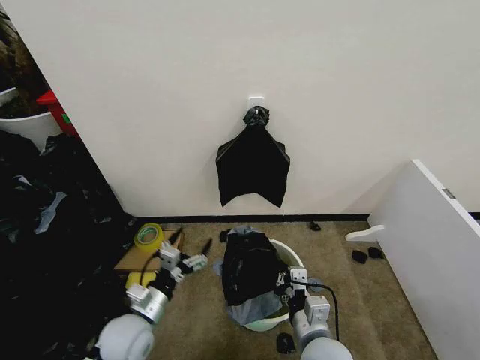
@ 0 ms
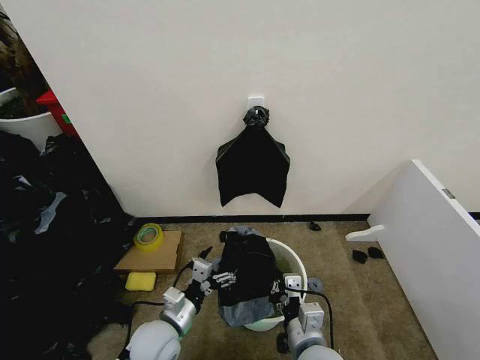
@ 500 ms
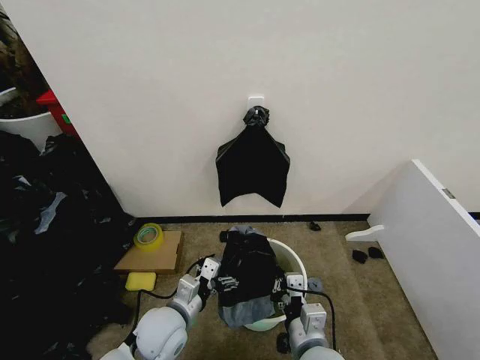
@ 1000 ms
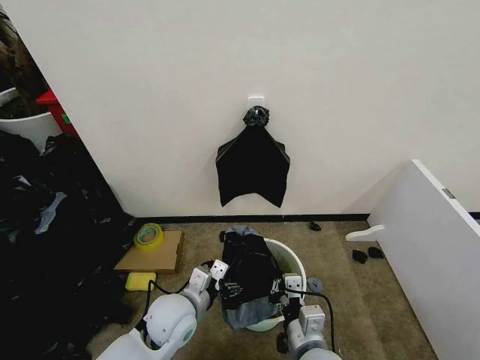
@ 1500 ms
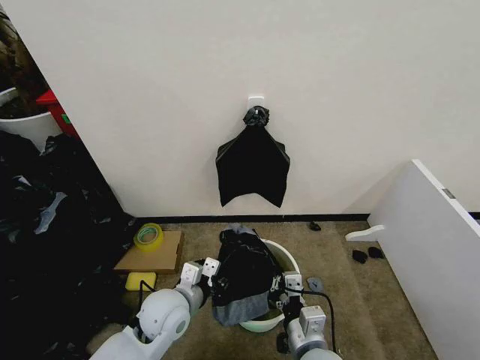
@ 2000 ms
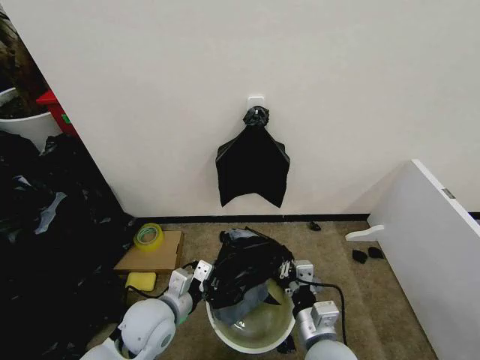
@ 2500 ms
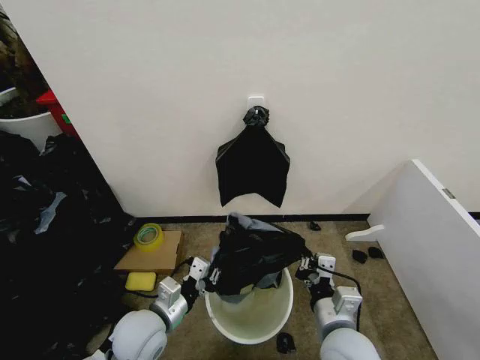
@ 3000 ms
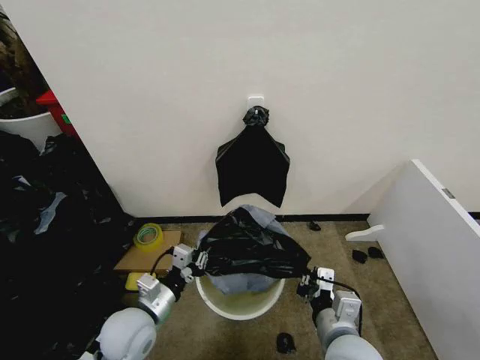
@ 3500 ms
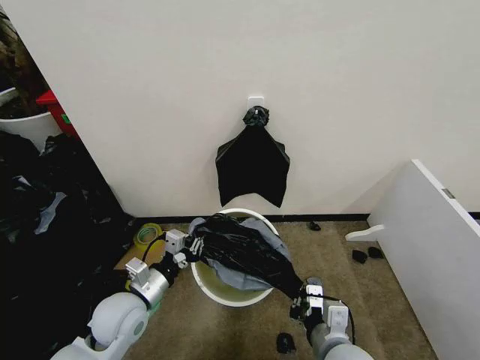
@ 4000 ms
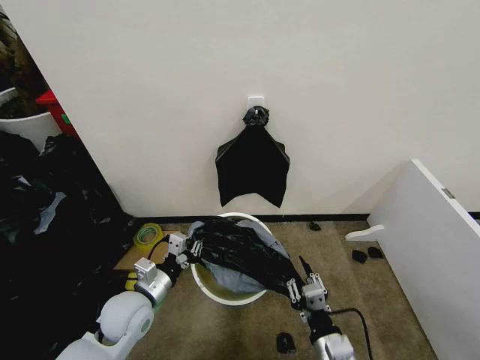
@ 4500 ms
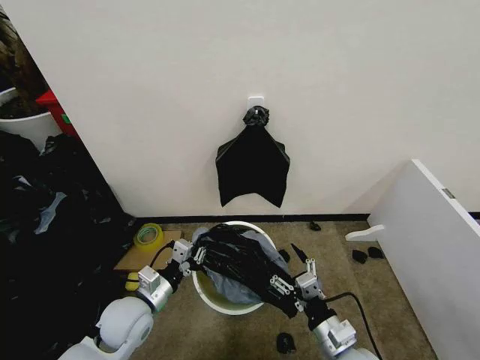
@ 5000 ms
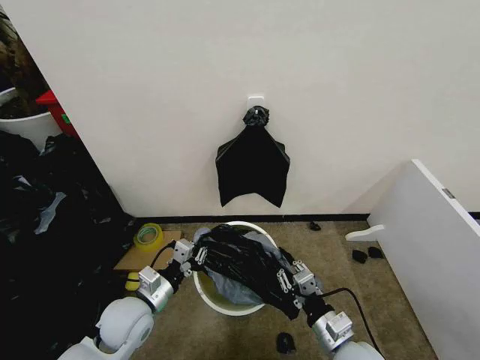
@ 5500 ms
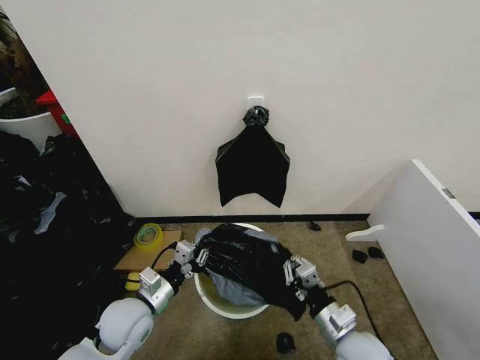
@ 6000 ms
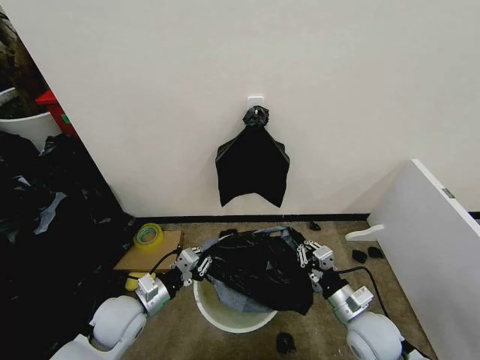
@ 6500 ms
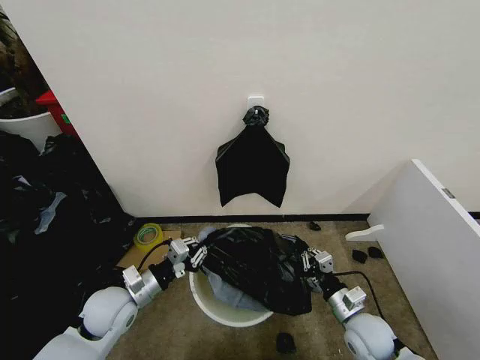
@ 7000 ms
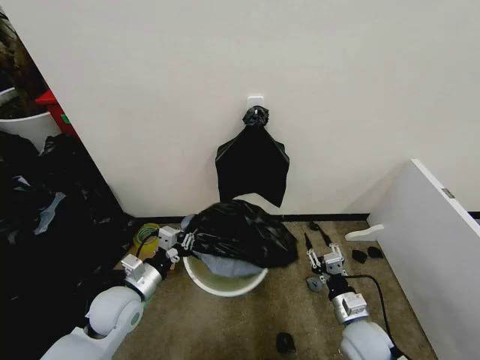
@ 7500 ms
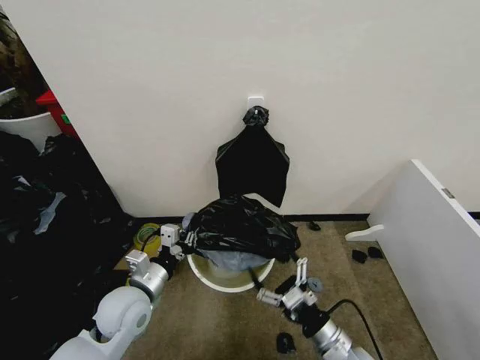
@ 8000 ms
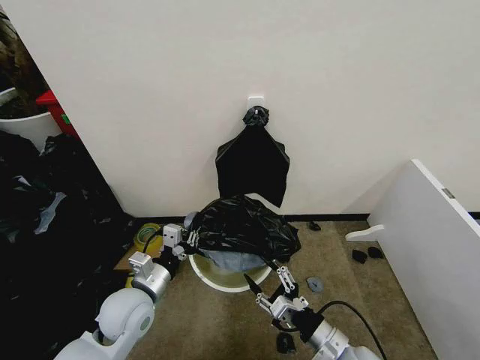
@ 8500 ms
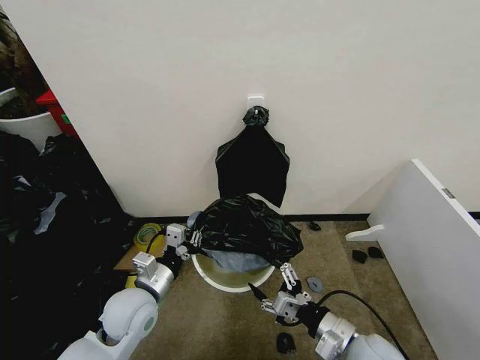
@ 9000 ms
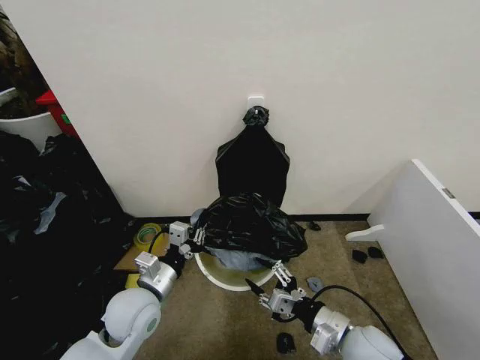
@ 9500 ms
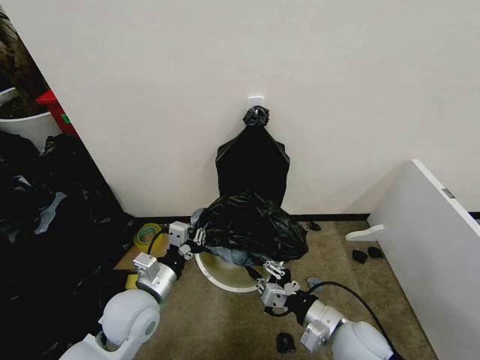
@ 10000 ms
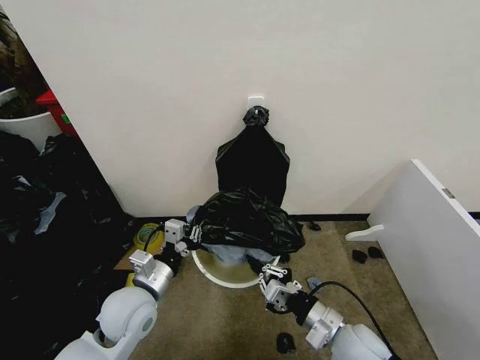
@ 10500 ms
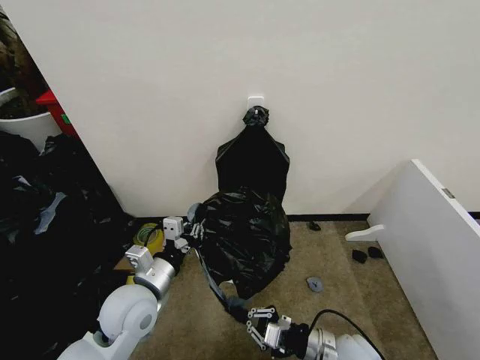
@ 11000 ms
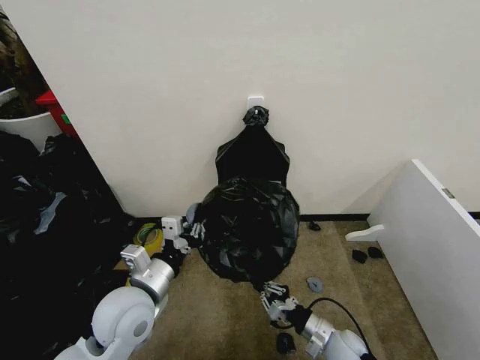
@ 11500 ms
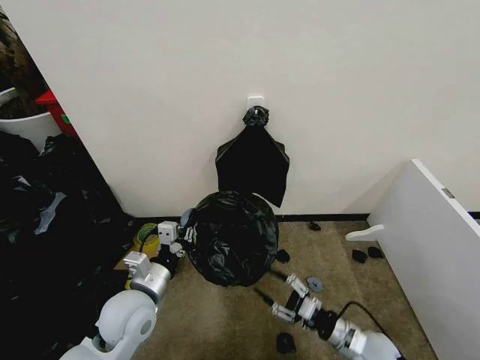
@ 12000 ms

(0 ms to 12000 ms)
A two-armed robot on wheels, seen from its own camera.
Task of the whole recording: Place the garbage bag over the trash bin.
0 ms - 2000 ms: The left gripper is displaced to the right by roughly 10 cm, and closes its fingers.
2000 ms - 4000 ms: The right gripper moves approximately 5 cm. Meanwhile the left gripper heads to the left, covering roughly 10 cm.
4000 ms - 6000 ms: The right gripper goes roughly 5 cm downward, and opens, then closes again.
6000 ms - 8000 ms: The right gripper travels forward and back again, roughly 5 cm each way, and opens up.
8000 ms - 10000 ms: The right gripper is displaced upward by approximately 5 cm, and closes up.
10000 ms - 12000 ms: The right gripper travels downward and to the right by about 15 cm.

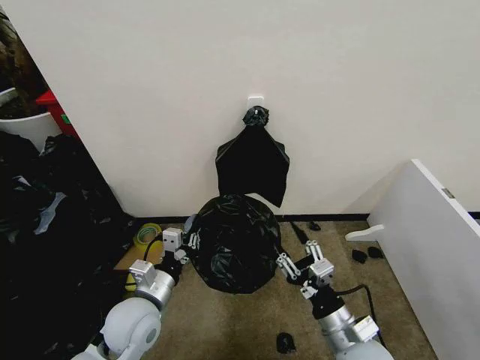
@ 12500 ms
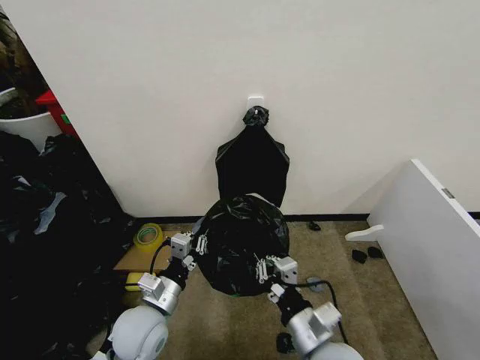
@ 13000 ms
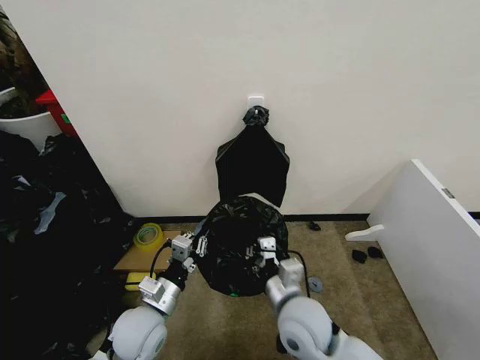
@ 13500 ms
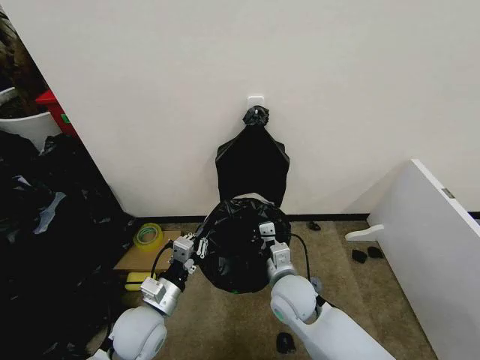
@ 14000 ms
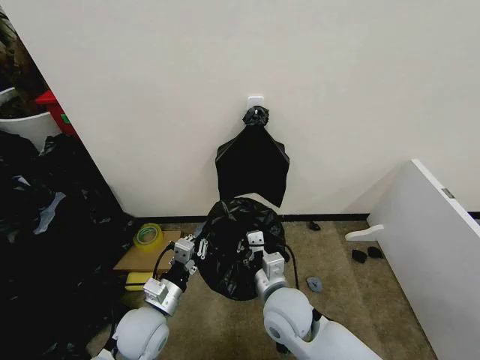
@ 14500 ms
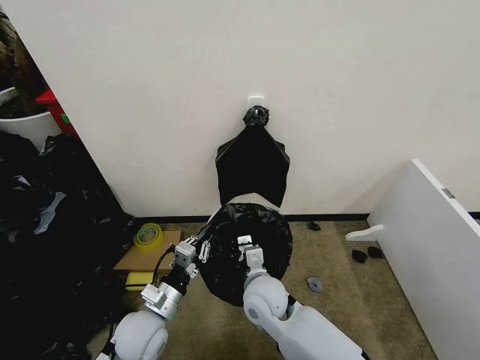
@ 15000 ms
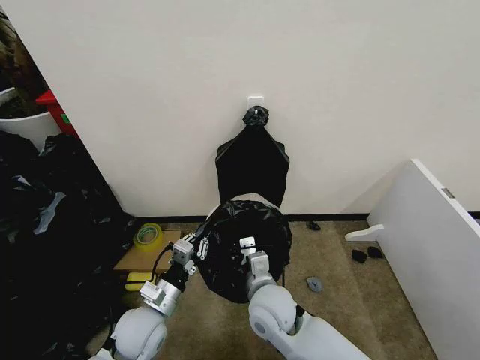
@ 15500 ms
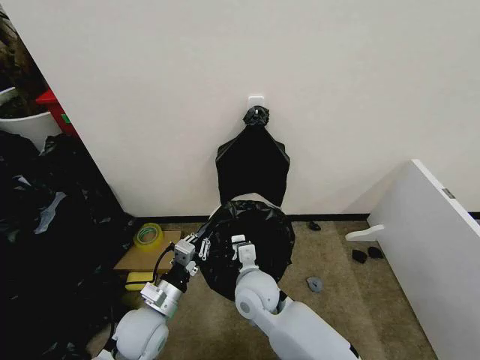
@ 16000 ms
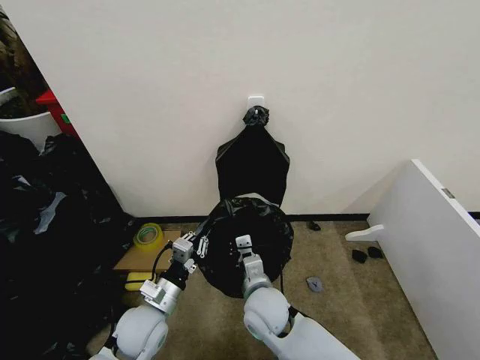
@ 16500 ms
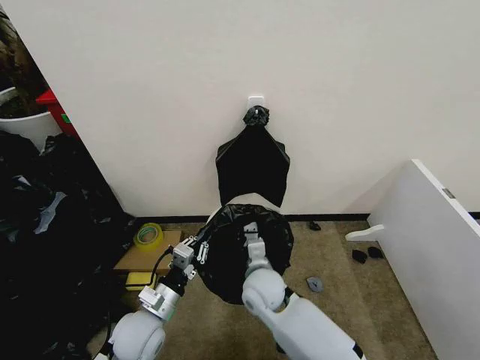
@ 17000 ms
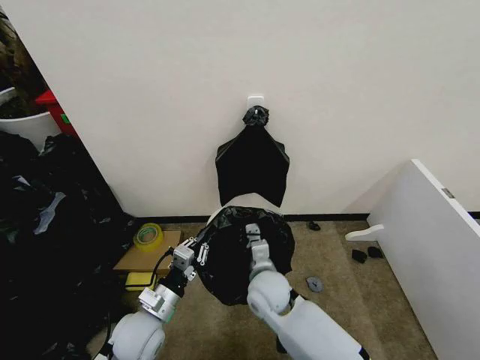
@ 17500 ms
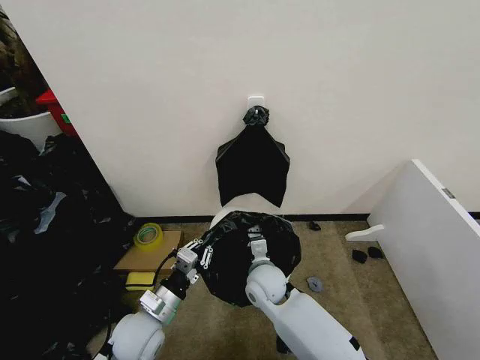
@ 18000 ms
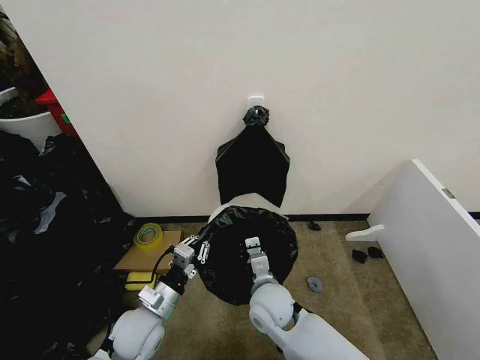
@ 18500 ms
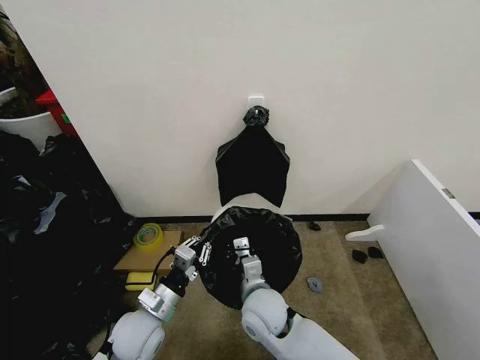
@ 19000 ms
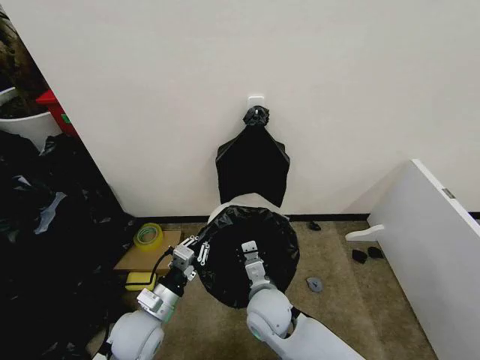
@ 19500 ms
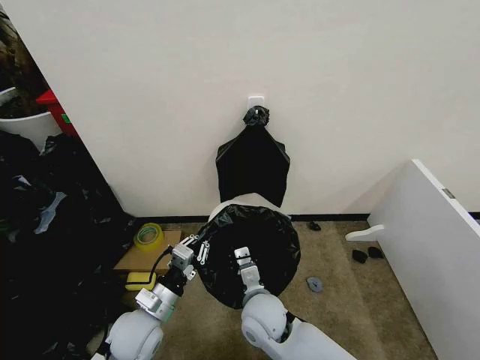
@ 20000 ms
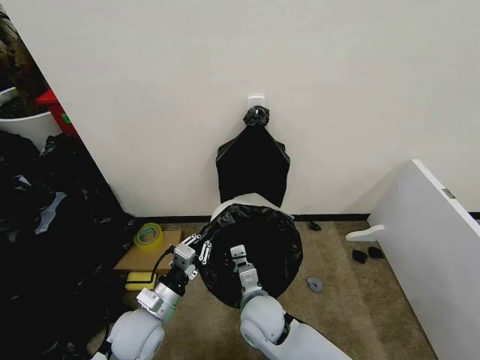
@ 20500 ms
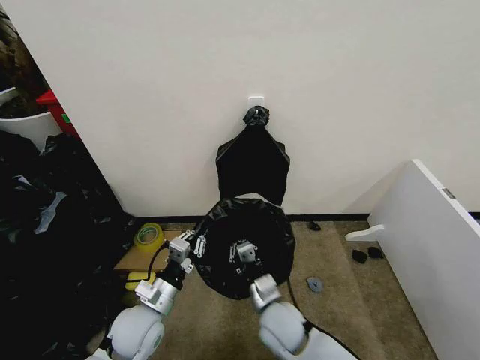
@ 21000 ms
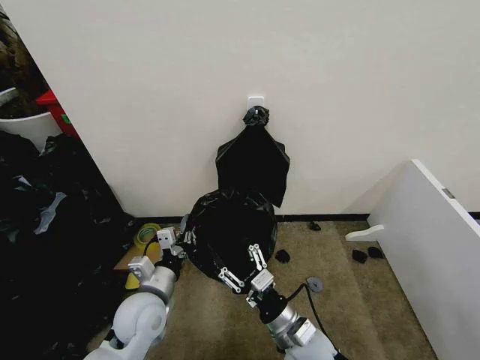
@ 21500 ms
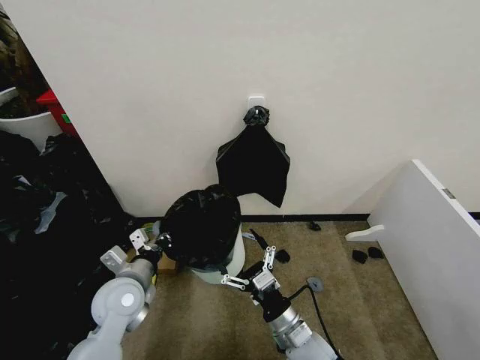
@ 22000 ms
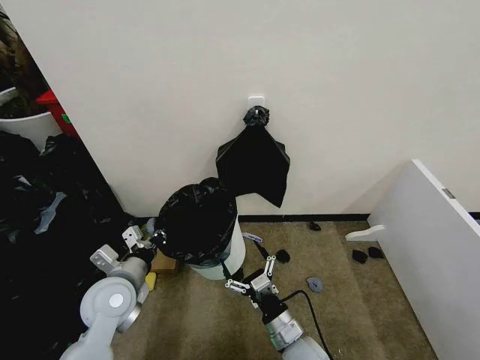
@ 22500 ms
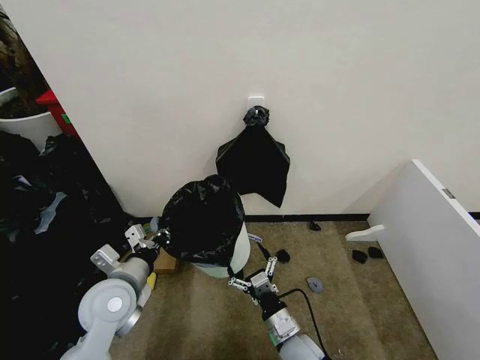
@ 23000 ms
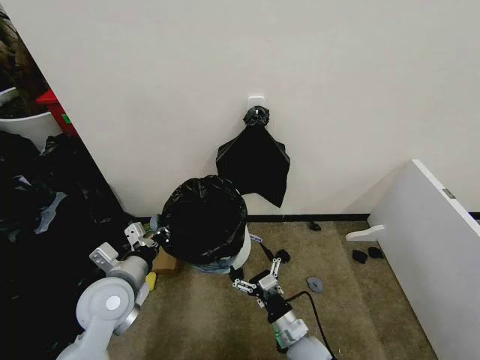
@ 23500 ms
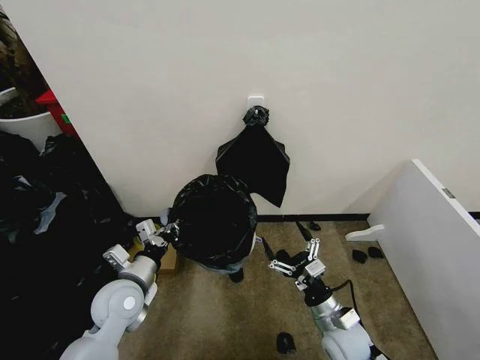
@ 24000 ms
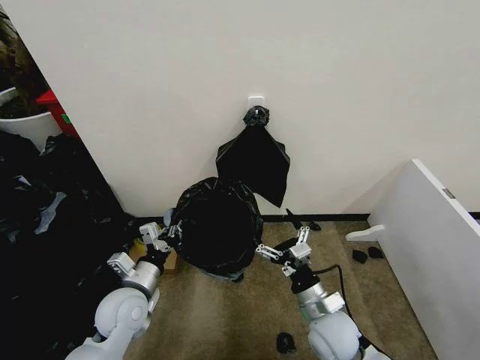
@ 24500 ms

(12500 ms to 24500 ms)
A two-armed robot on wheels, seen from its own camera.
Task of the whole recording: Place the garbage bag over the trash bin.
12500 ms - 14500 ms: The right gripper shifts about 15 cm to the left and forward, and closes its fingers. Meanwhile the left gripper moves downward, roughly 5 cm.
14500 ms - 16500 ms: The right gripper shifts by roughly 5 cm.
18500 ms - 20500 ms: The grippers move only a little.
20500 ms - 22500 ms: The right gripper shifts about 10 cm to the right, backward and downward, and opens. The left gripper is displaced upward by roughly 5 cm.
22500 ms - 24500 ms: The right gripper is displaced to the right and upward by about 10 cm.

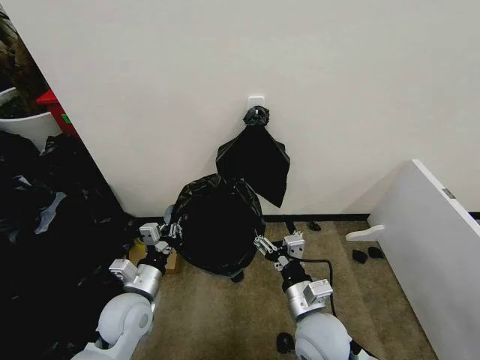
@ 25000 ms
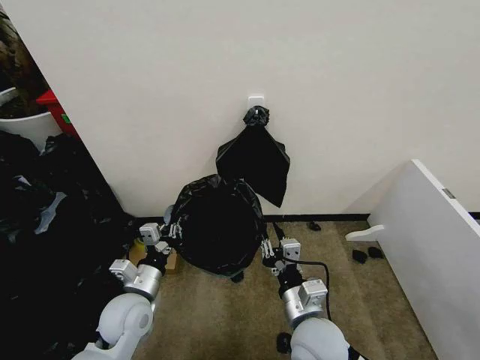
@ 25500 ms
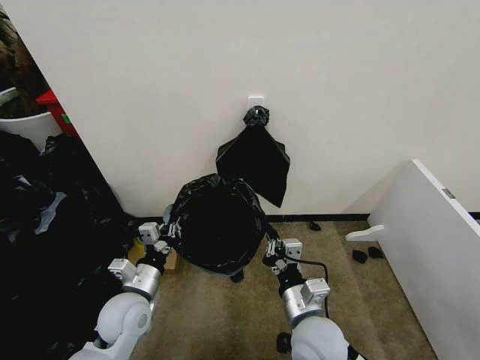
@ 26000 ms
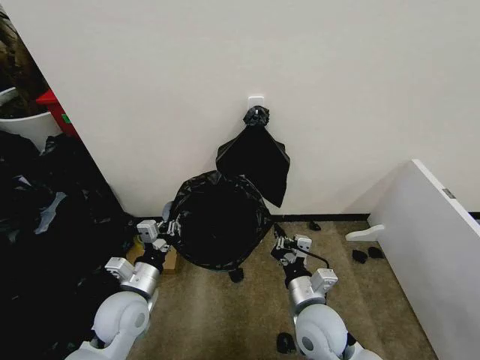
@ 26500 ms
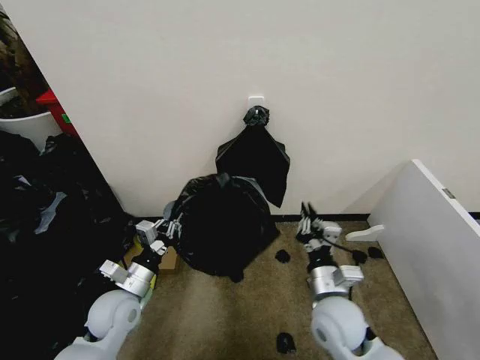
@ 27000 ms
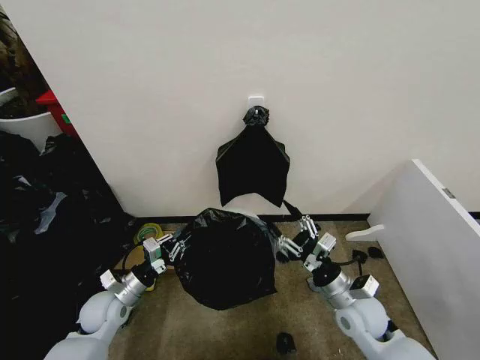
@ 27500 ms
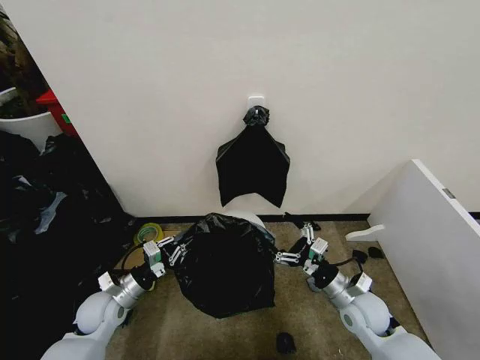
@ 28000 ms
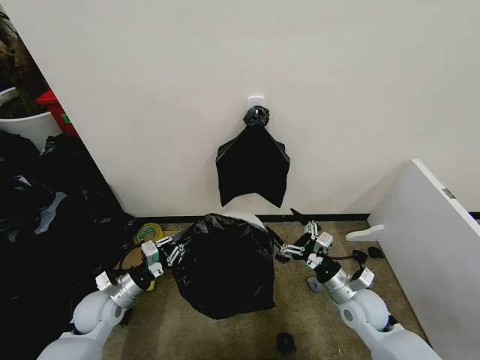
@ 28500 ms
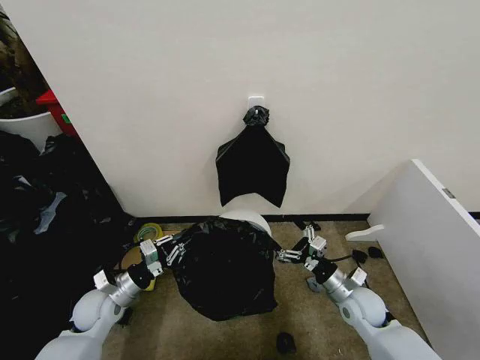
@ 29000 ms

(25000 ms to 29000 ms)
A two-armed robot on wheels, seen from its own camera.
Task of the whole recording: Place the garbage bag over the trash bin.
25000 ms - 27000 ms: The right gripper closes its fingers.
27000 ms - 29000 ms: The left gripper goes approximately 5 cm to the left. Meanwhile the right gripper goes about 15 cm to the right, downward and forward, and opens its fingers.
